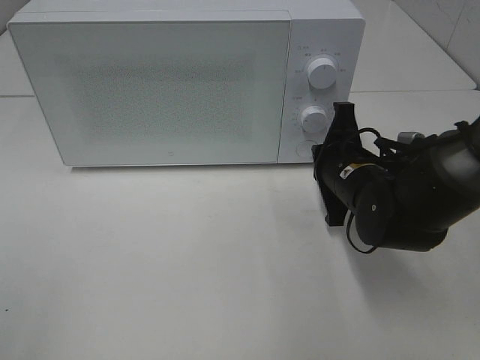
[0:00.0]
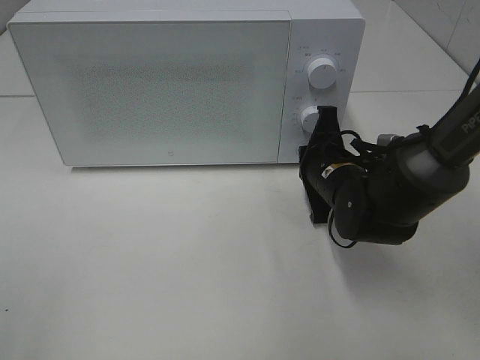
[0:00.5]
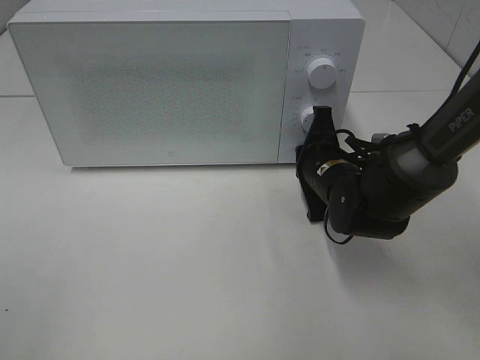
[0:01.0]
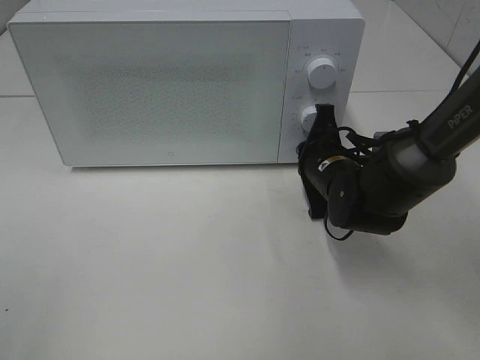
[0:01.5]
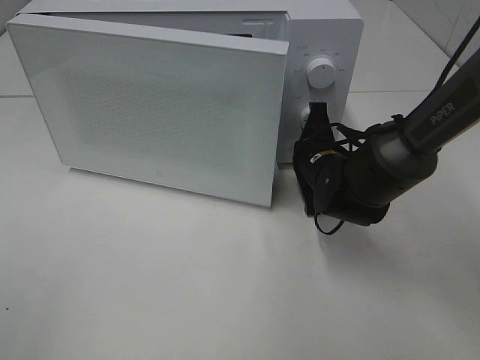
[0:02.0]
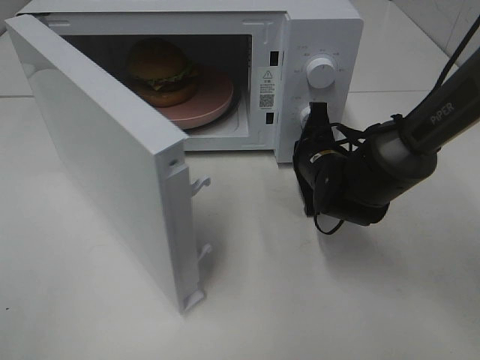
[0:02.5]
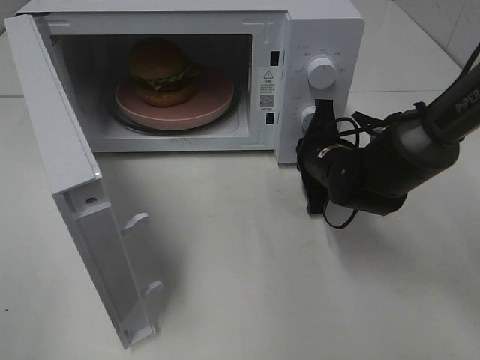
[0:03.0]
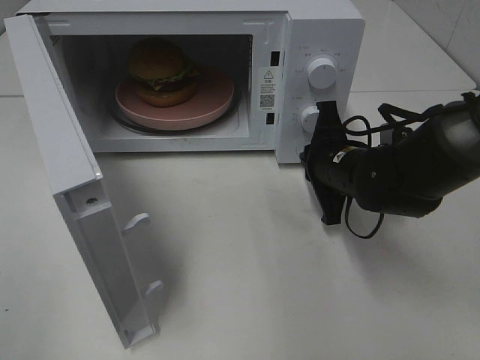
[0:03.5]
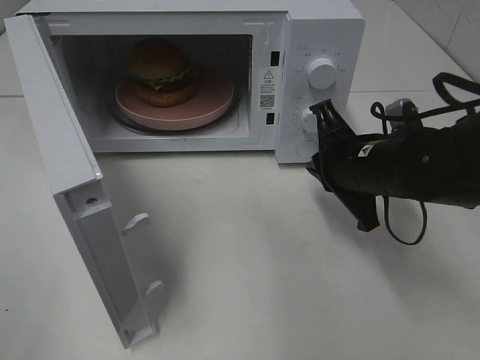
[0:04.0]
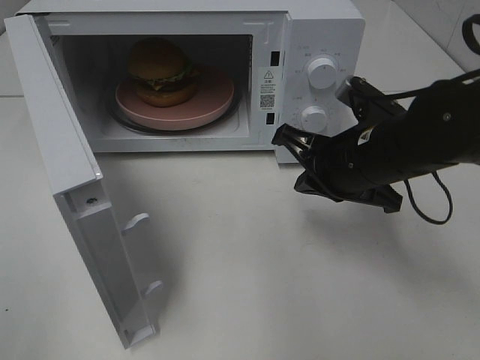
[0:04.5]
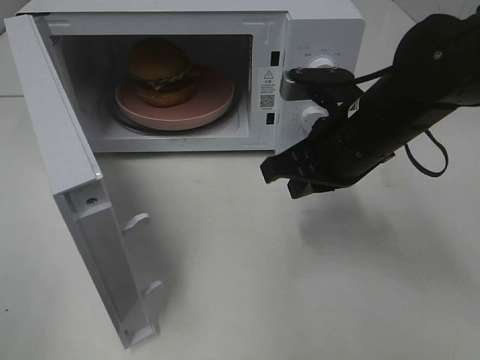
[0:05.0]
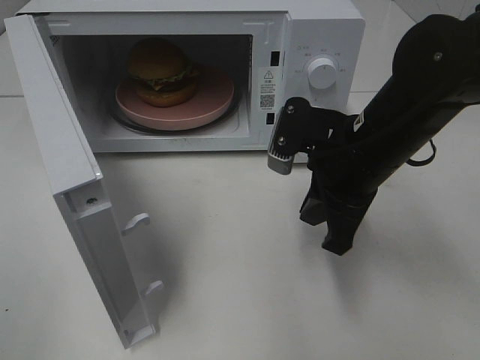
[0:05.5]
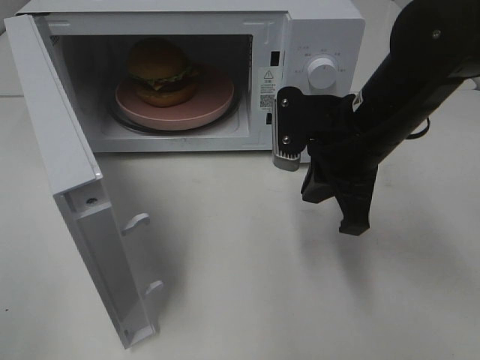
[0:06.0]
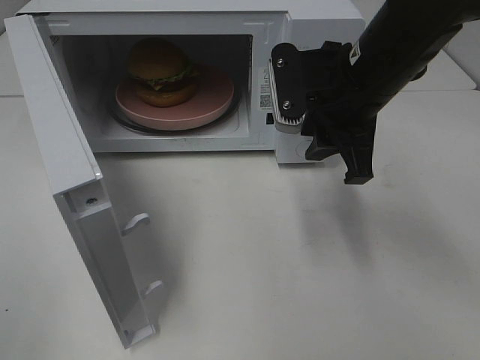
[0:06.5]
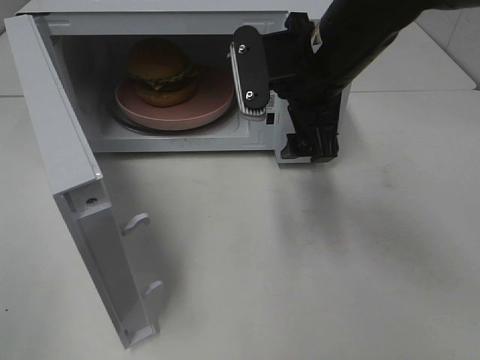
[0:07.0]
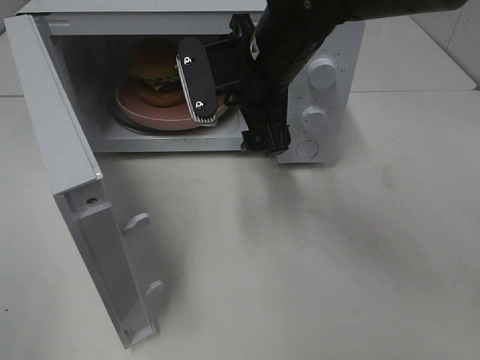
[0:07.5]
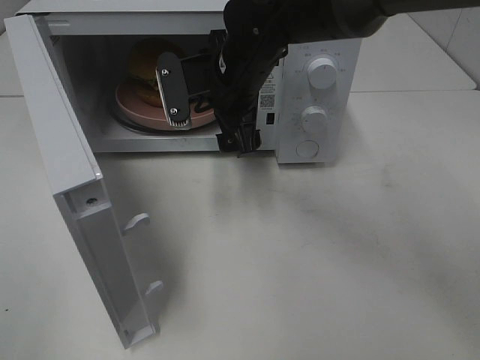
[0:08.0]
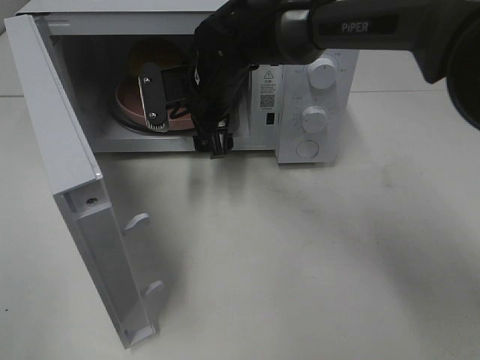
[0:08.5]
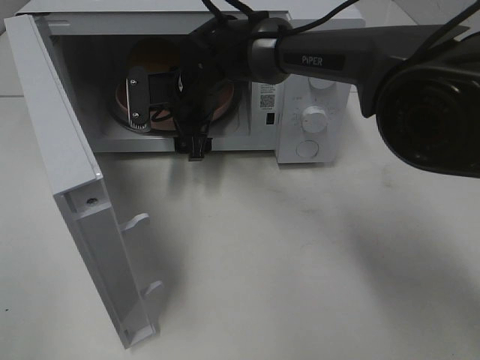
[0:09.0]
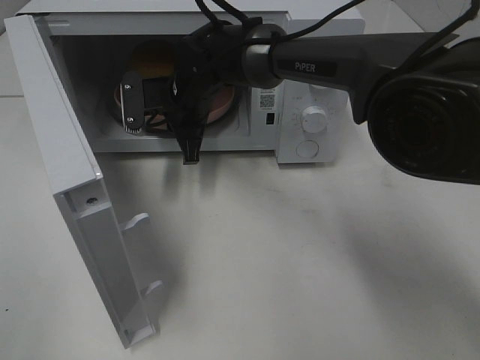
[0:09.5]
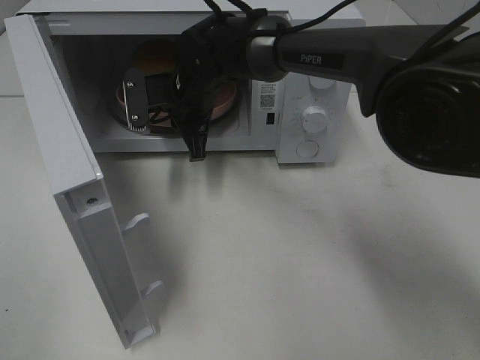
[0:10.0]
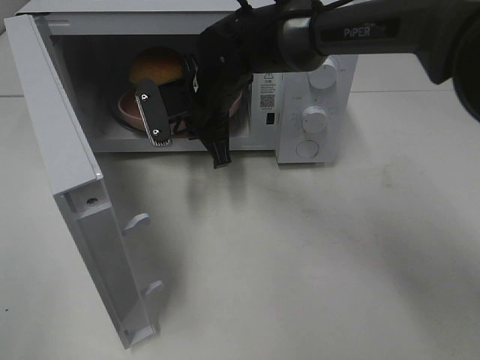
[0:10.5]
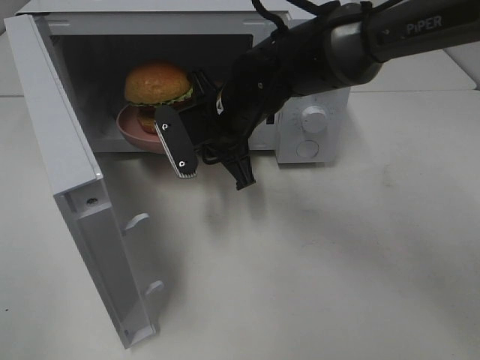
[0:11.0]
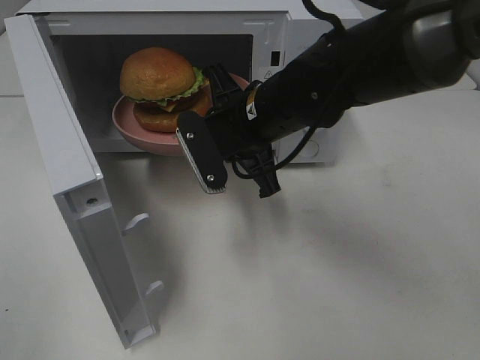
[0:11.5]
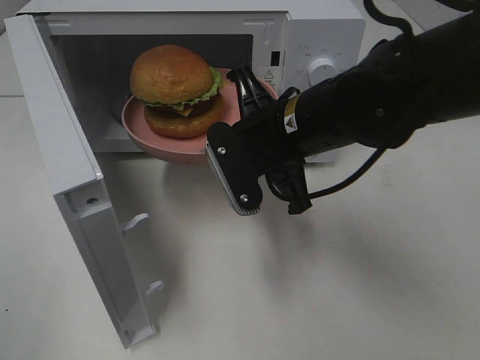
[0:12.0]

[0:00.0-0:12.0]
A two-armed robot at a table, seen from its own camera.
Task of the whole recording: Heat the burger.
Step, 0:00.0 to 0:03.5: Right hand: press the switch.
Step, 0:04.0 to 0:10.0: Right hand: grab the plate with the hamburger.
0:00.0 to 0:02.0: The right gripper moves forward, about 5 cm.
0:02.0 to 0:04.0: The right gripper goes roughly 10 cm backward and upward.
0:04.0 to 0:06.0: The right gripper is displaced upward by some 5 cm.
0:06.0 to 0:08.0: The right gripper heads to the left and forward, covering about 15 cm, and opens its fingers.
0:08.0 to 0:10.0: The right gripper goes about 10 cm forward, to the left and downward, and closes.
0:10.0 to 0:12.0: The right gripper goes some 20 cm backward and to the right.

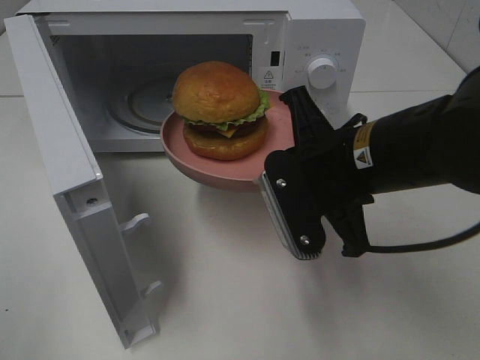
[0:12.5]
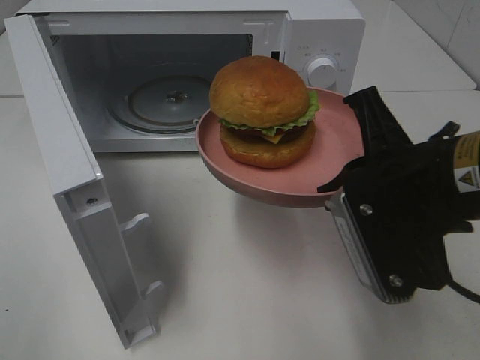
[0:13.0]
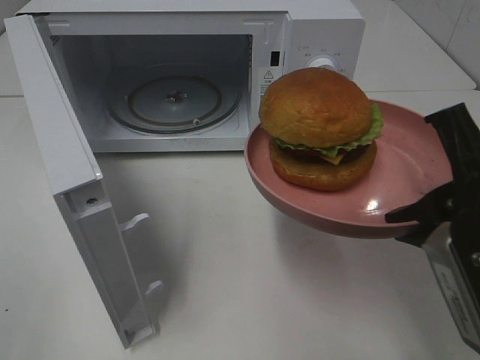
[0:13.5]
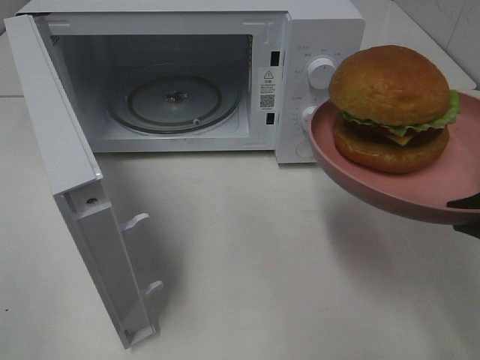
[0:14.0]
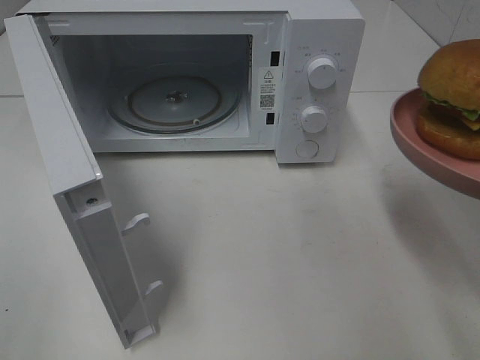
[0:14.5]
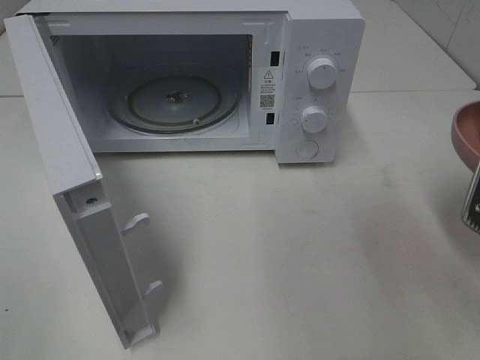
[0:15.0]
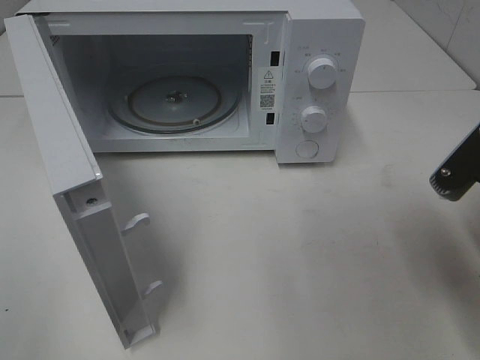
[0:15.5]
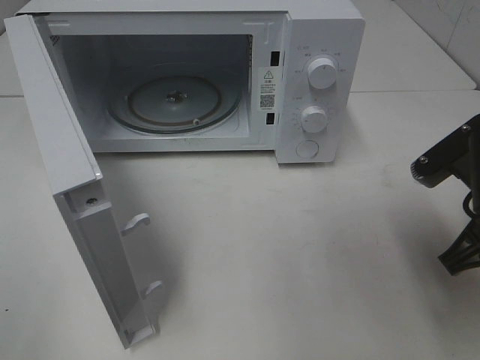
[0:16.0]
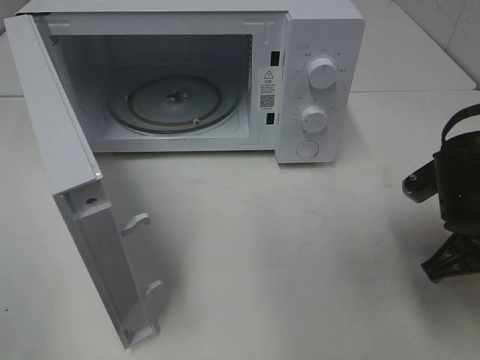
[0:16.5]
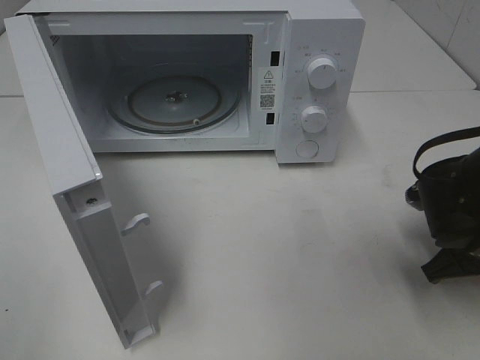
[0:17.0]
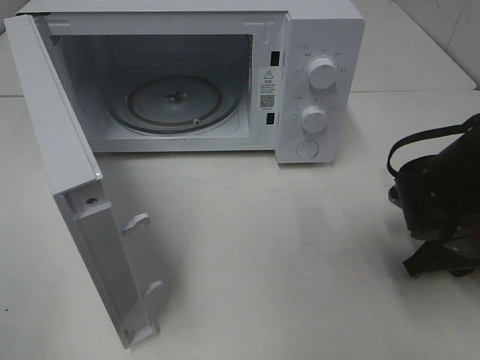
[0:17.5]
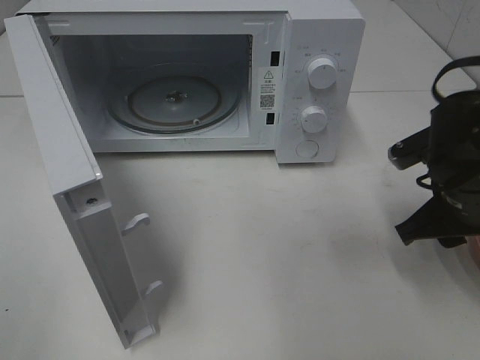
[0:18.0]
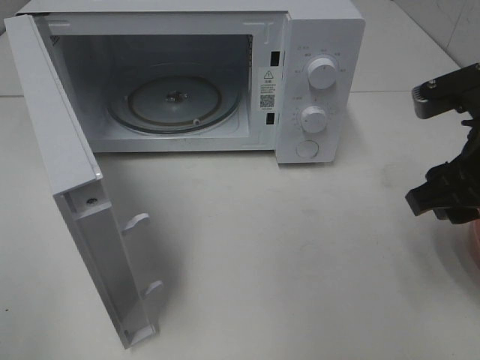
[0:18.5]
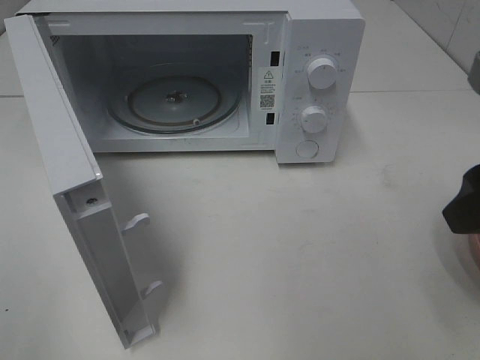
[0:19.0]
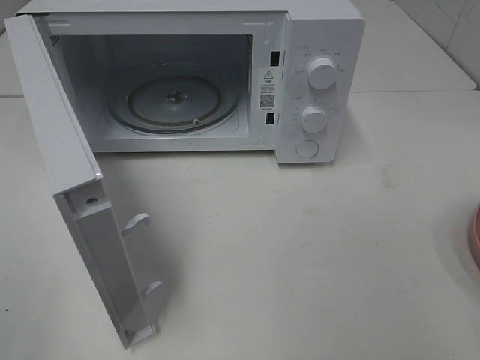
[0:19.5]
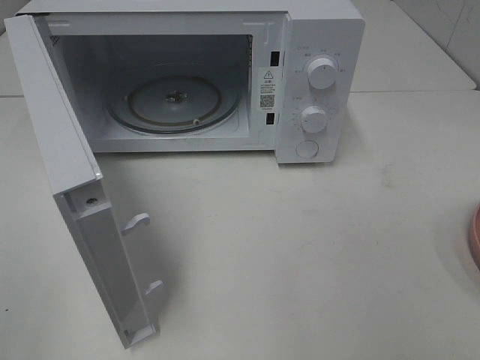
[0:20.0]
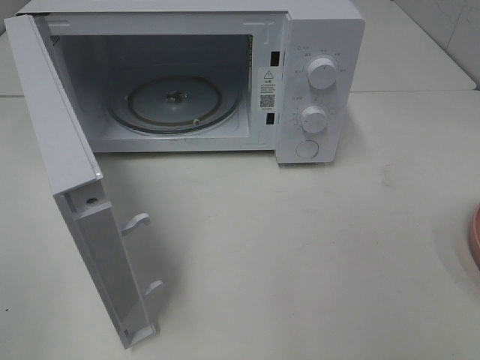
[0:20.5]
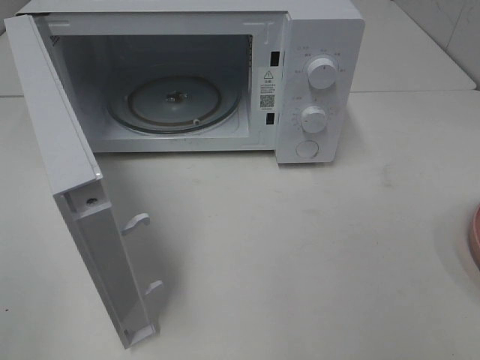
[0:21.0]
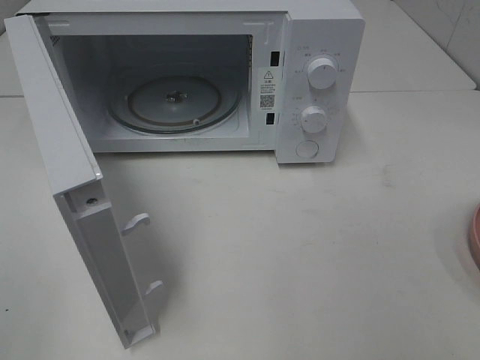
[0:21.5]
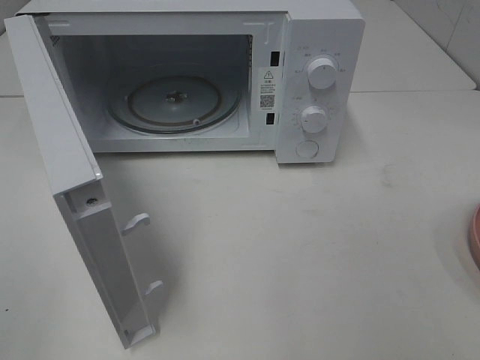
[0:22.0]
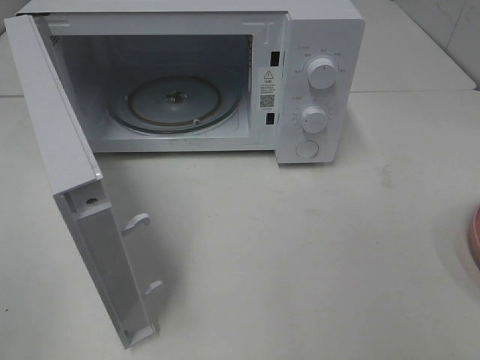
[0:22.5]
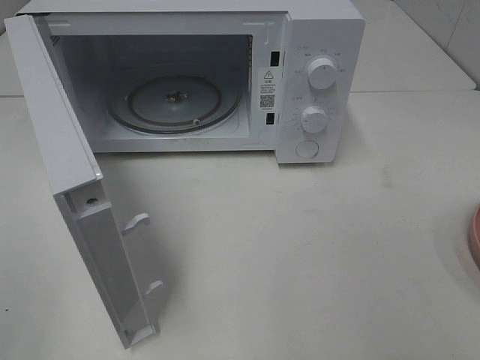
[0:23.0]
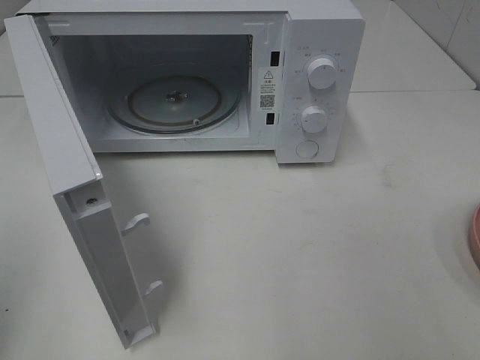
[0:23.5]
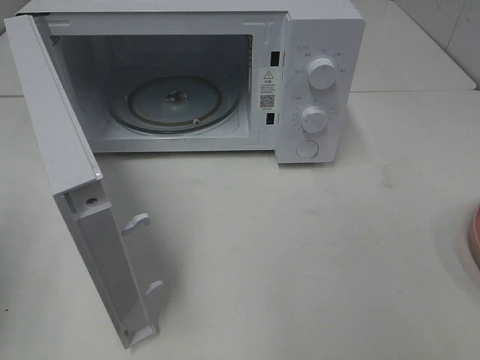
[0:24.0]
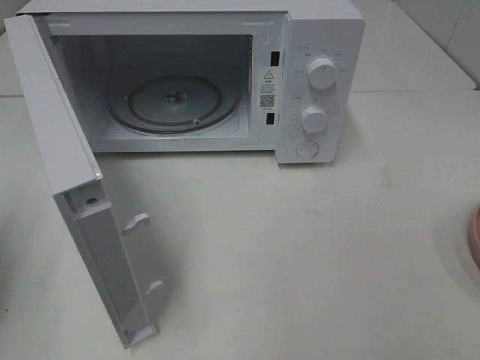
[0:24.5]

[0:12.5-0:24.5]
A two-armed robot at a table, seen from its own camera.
Task of the whole recording: Heat the burger.
Step, 0:12.5 to 0:17.5: Right hand: place the plate on the table.
0:12.5 to 0:14.5: The right gripper moves to the right and backward, approximately 15 cm.
0:14.5 to 0:16.5: The right gripper goes some 15 cm downward and forward.
0:16.5 to 0:18.5: The right gripper shifts approximately 10 cm upward, and opens.
0:18.5 to 0:20.5: The right gripper travels backward by some 20 cm.
0:20.5 to 0:22.5: Both grippers stay put.
0:22.5 to 0:24.5: The left gripper goes approximately 15 cm forward, and closes up.

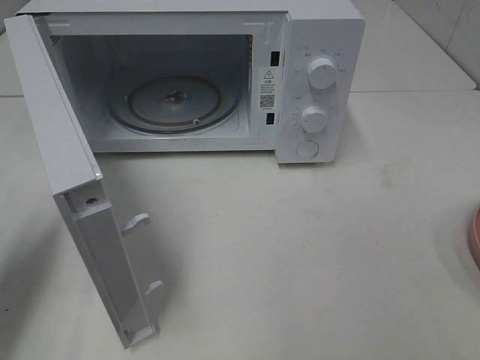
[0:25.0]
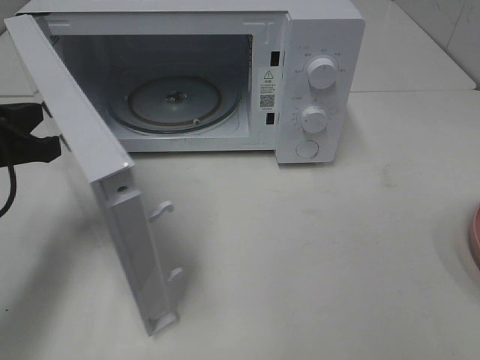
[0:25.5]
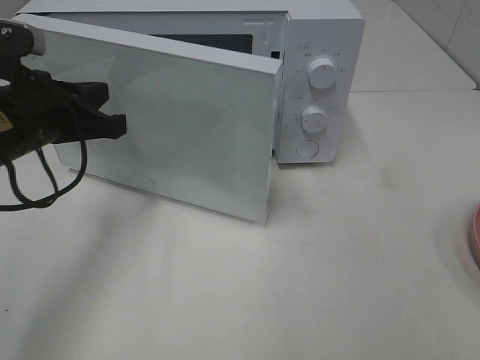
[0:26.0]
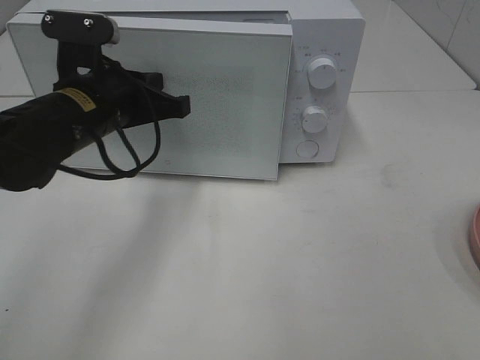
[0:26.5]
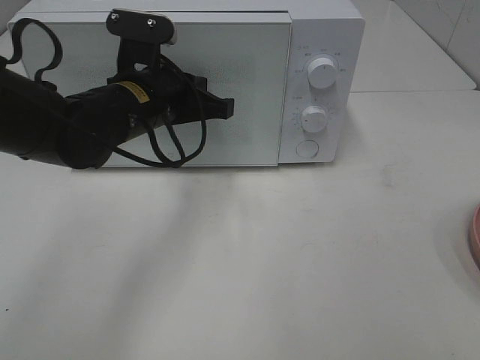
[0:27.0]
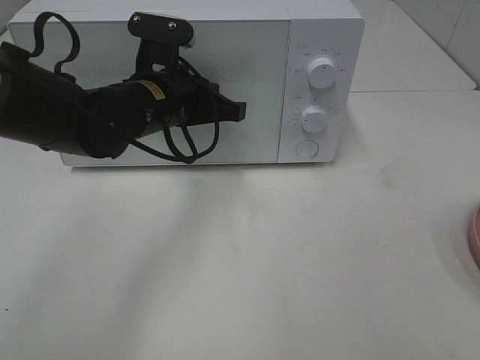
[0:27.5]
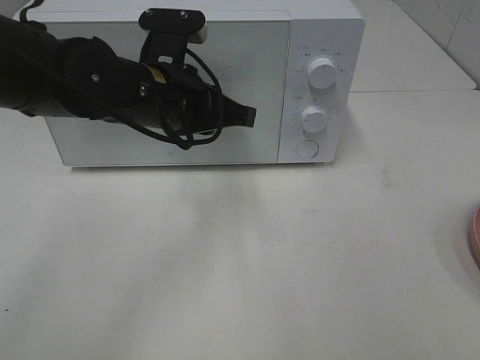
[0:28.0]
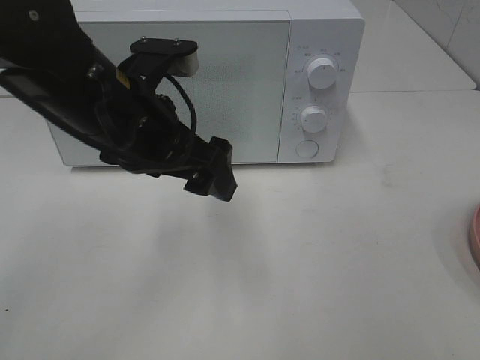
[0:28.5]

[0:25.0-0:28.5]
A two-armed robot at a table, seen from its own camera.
Task of the whole recording: Heat the burger.
Step, 0:25.0 to 0:28.0: Left hand: close the microwave door.
0:25.0 to 0:27.0: The left gripper shifts some 25 cm to the right and forward.
0:27.0 to 0:28.5: The left gripper travels backward and upward by roughly 10 cm, and opens its fingers.
